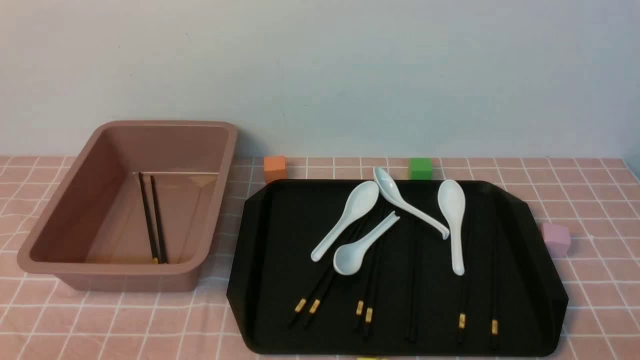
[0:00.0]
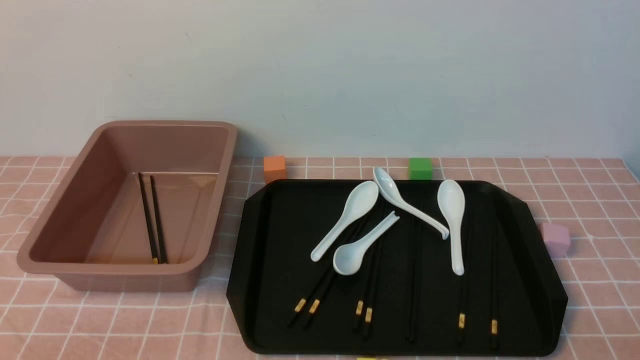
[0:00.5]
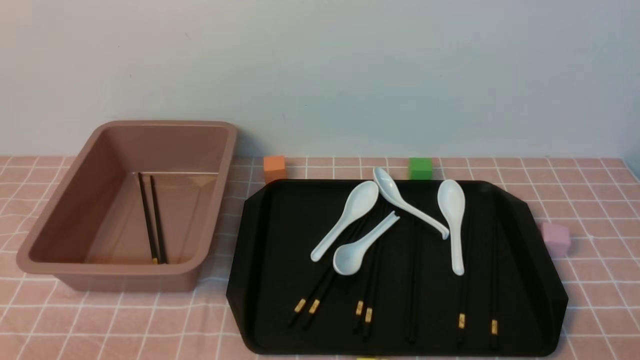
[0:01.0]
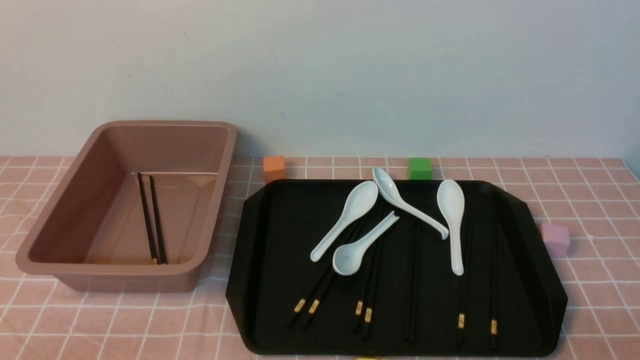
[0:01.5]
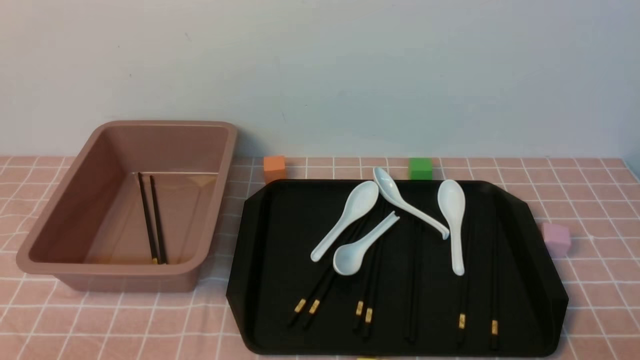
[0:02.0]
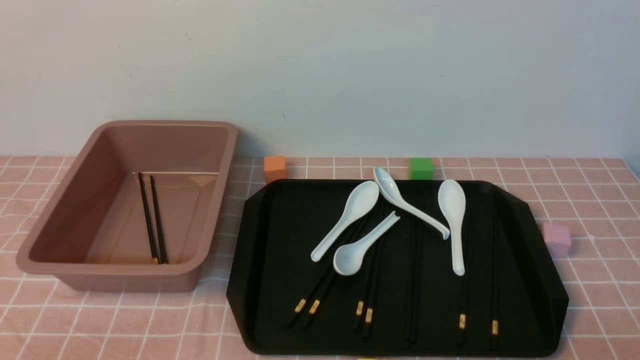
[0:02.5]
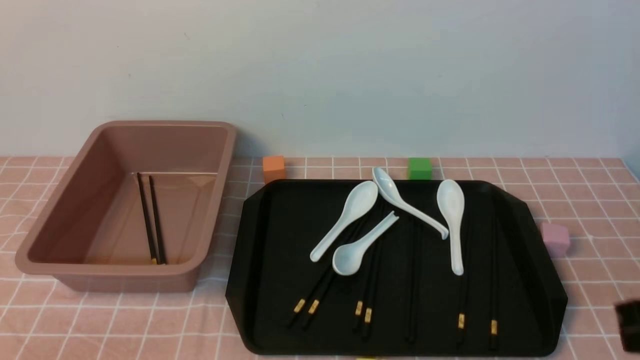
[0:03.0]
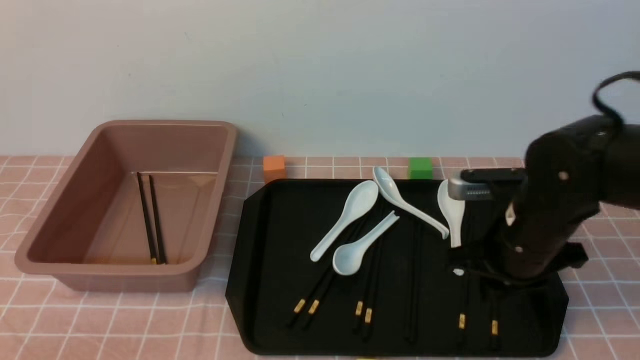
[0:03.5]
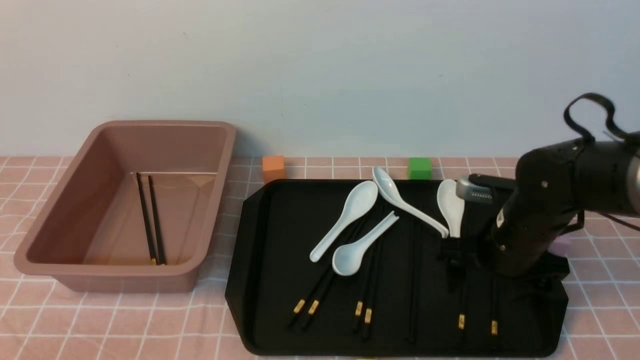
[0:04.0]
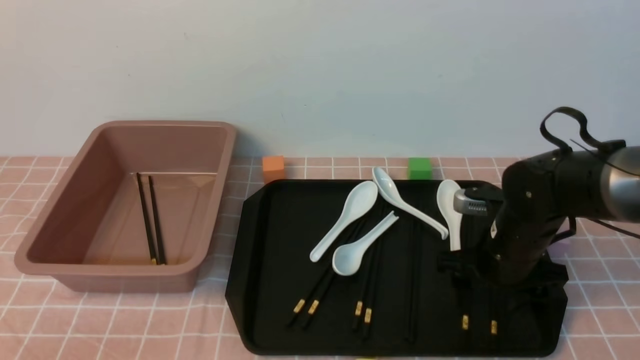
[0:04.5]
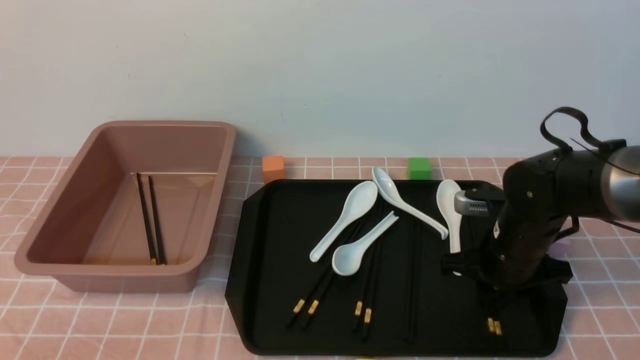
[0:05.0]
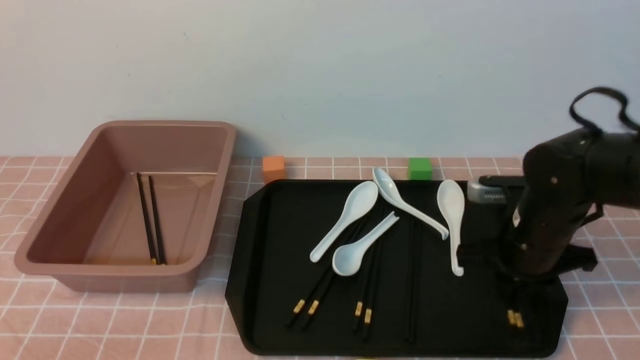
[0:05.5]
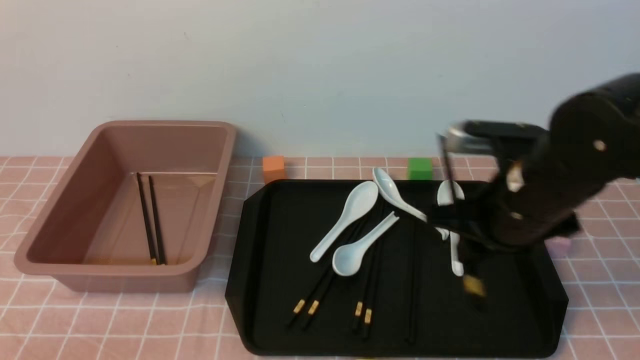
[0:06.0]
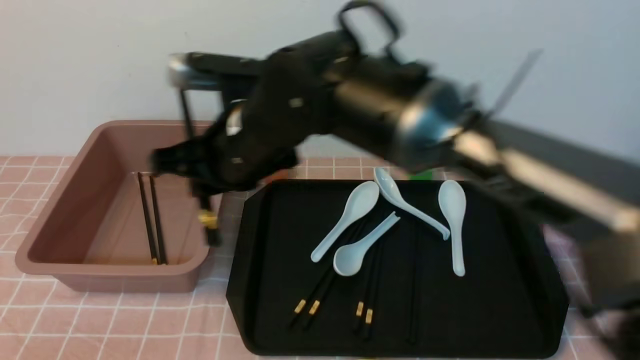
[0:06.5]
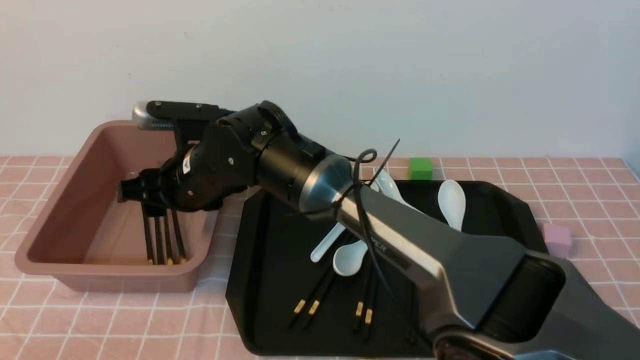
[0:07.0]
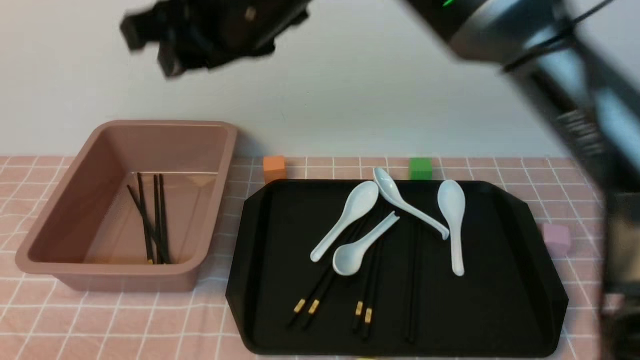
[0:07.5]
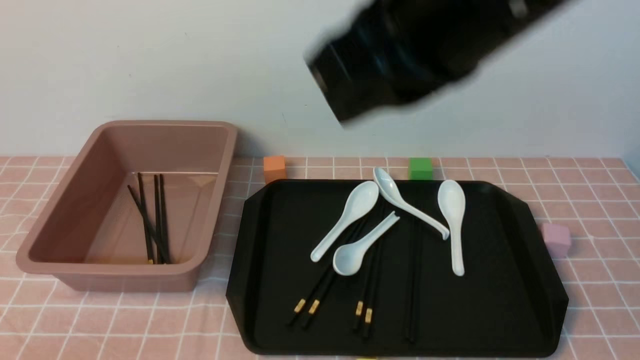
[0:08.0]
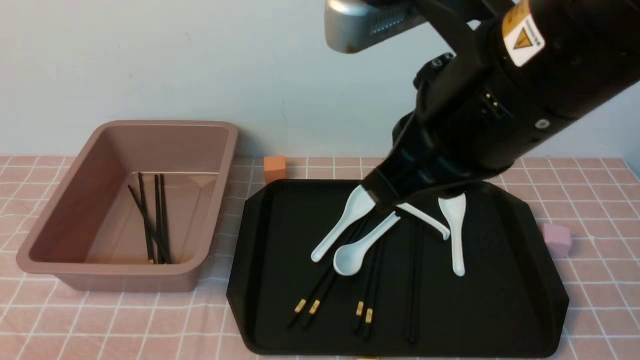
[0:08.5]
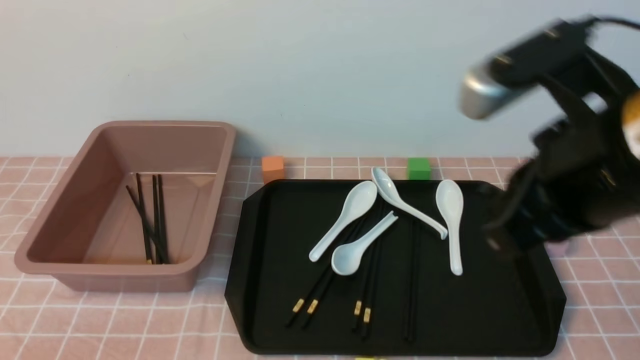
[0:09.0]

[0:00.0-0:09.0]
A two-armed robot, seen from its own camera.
Step, 0:00.0 to 0:05.5: use the right arm to grab a pair of chopsticks.
Step, 0:06.0 to 0:07.0: use the right arm to put the chopsticks into the lunch box.
0:02.0 to 0:04.5: The right gripper moves forward, approximately 30 cm, and opens; the left gripper opens its fingers.
0:04.5 to 0:07.0: The right gripper shifts roughly 30 cm to the left, and closes and opens again.
0:07.0 to 0:09.0: The right gripper heads to the right and backward, covering roughly 35 cm, and closes its fingers.

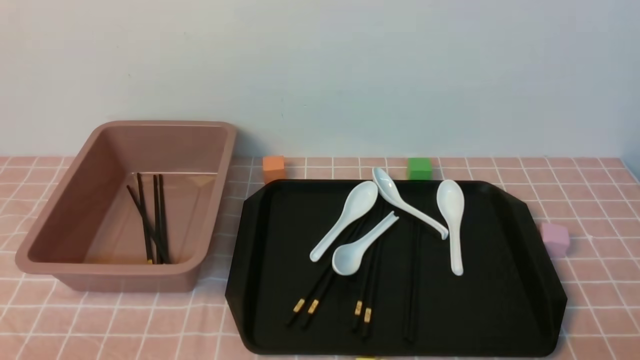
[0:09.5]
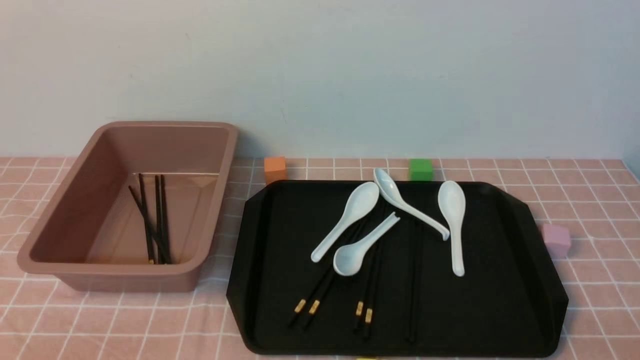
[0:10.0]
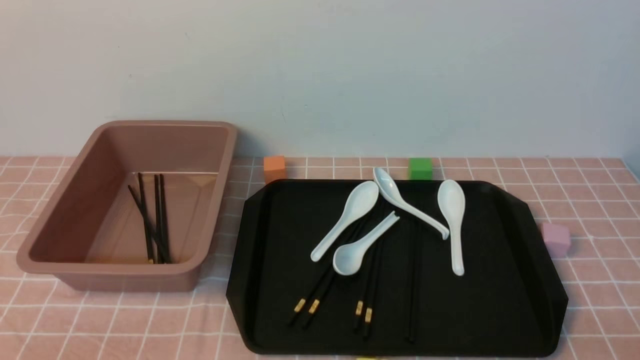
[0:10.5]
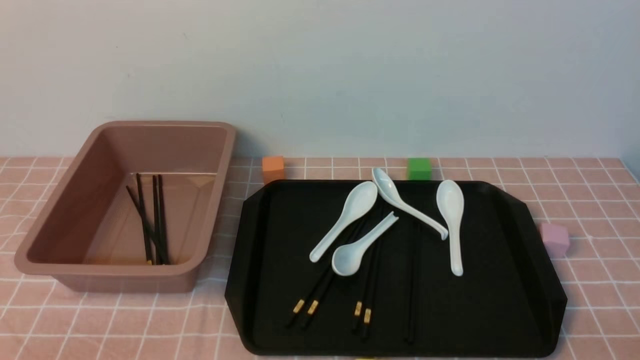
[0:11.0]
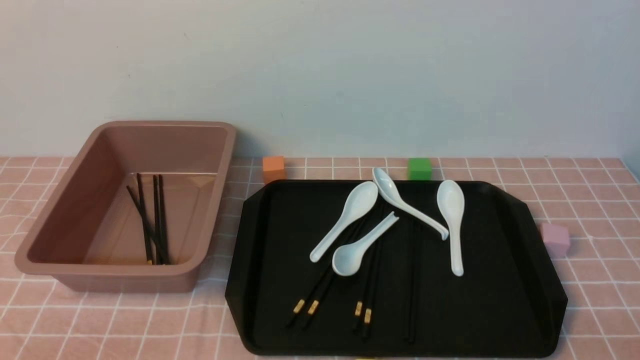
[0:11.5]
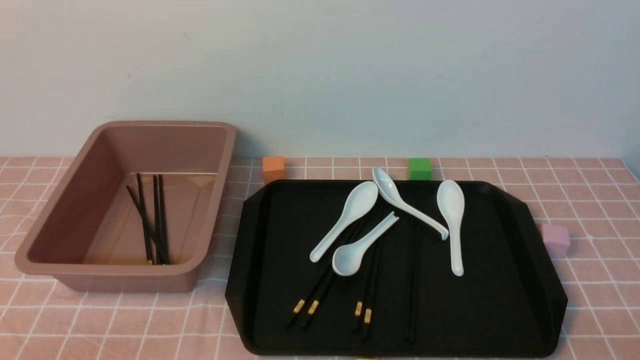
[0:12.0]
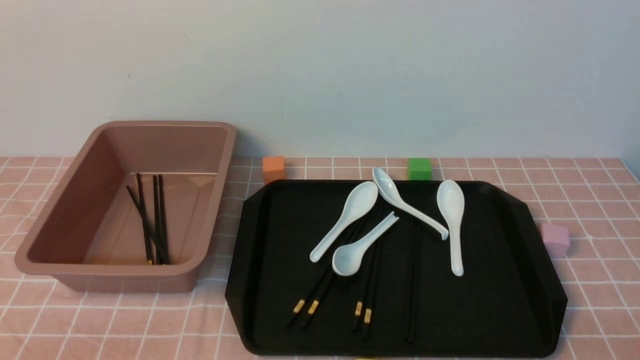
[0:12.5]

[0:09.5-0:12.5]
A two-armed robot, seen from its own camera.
0:11.0 to 0:12.5: Neither gripper changes place.
